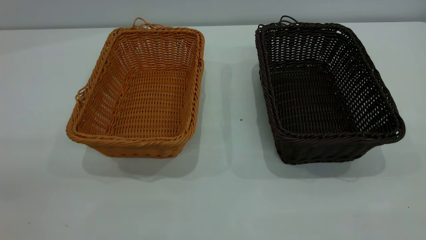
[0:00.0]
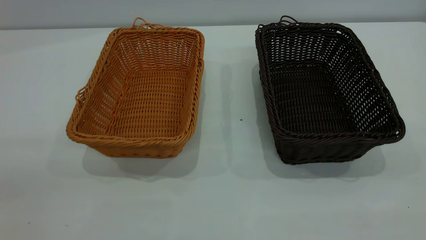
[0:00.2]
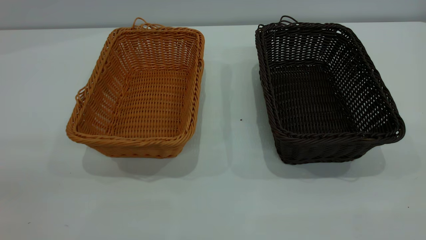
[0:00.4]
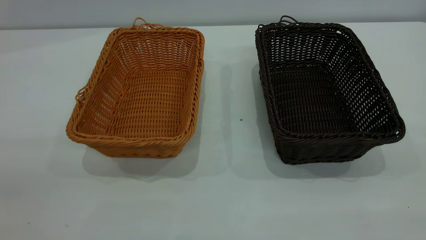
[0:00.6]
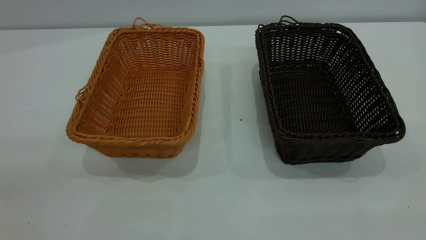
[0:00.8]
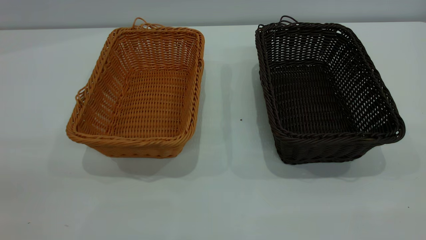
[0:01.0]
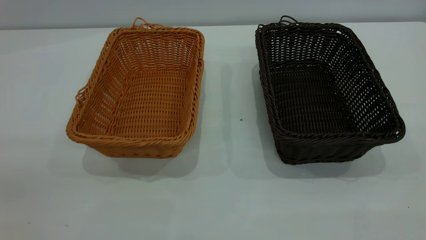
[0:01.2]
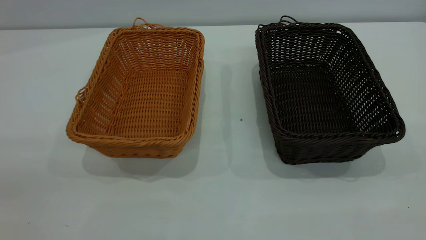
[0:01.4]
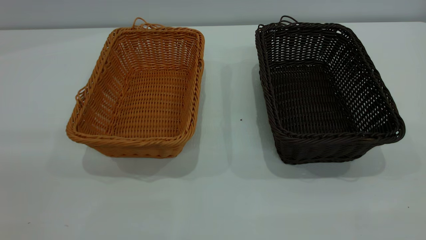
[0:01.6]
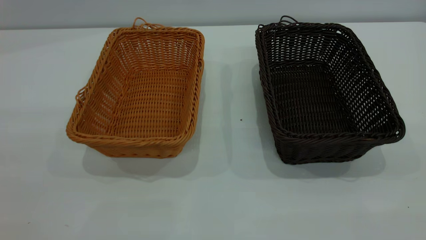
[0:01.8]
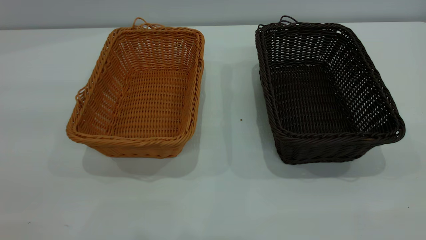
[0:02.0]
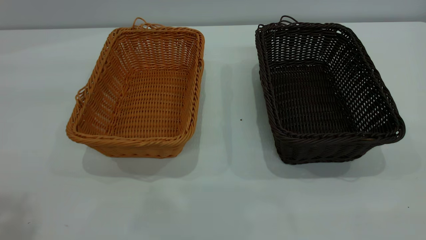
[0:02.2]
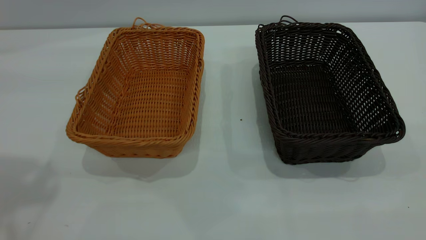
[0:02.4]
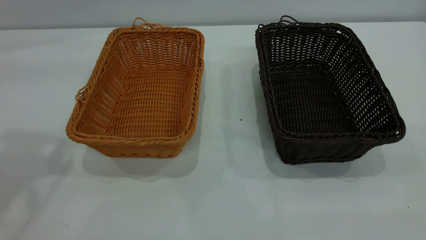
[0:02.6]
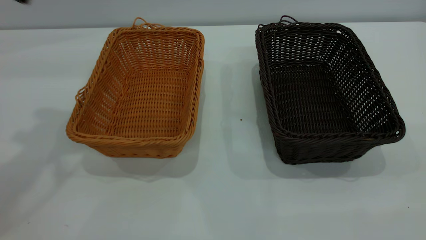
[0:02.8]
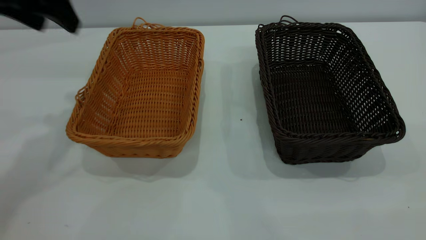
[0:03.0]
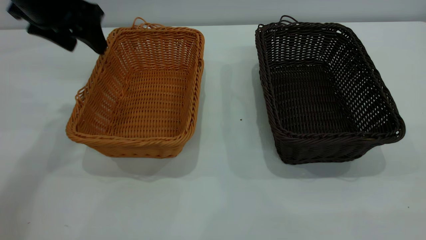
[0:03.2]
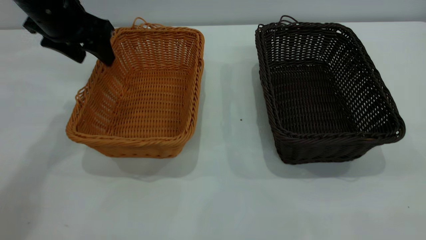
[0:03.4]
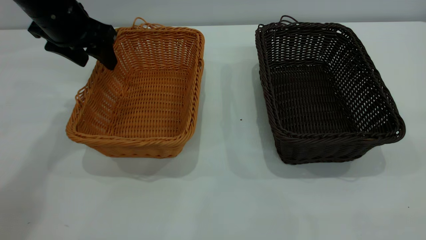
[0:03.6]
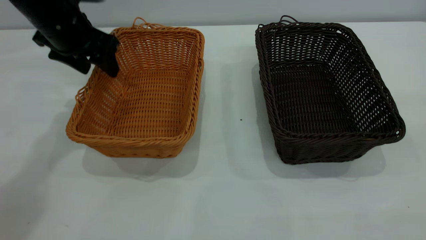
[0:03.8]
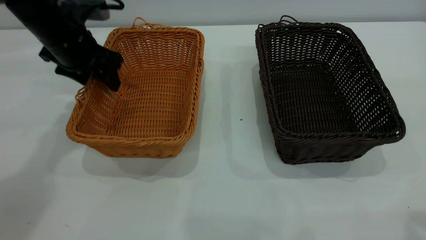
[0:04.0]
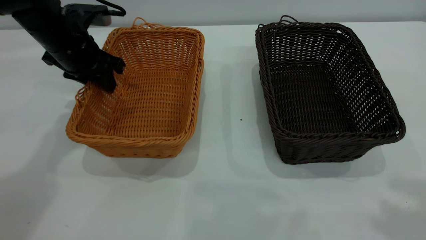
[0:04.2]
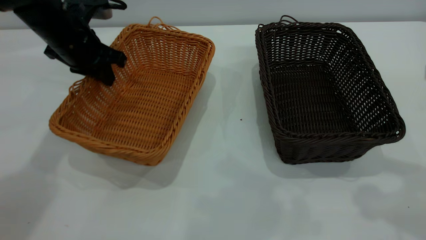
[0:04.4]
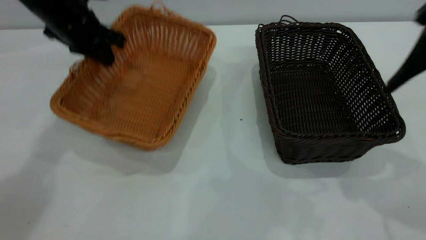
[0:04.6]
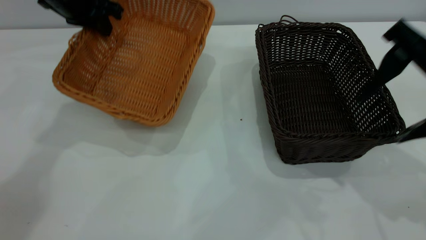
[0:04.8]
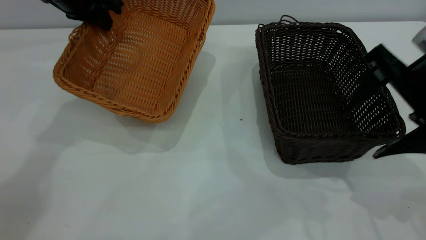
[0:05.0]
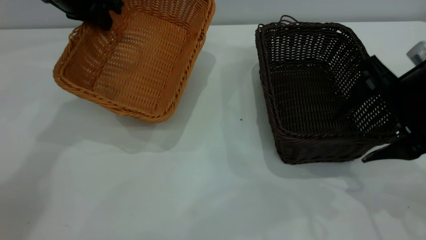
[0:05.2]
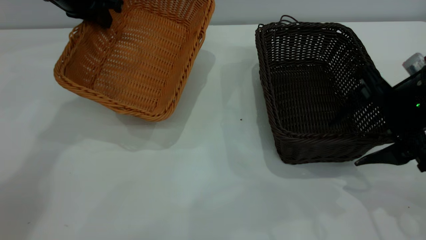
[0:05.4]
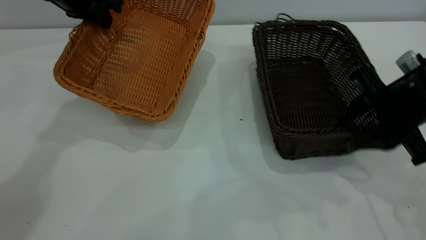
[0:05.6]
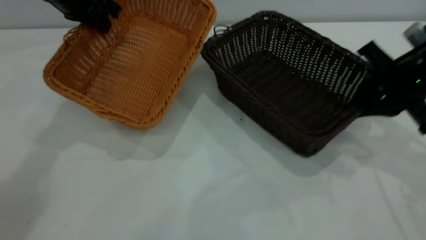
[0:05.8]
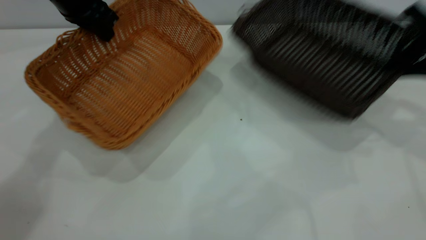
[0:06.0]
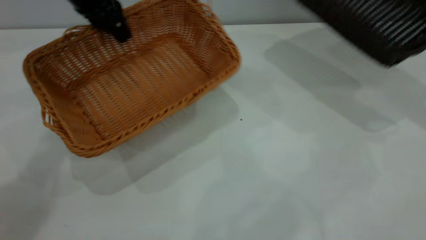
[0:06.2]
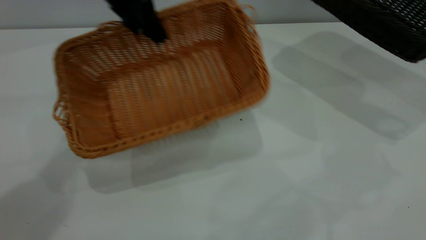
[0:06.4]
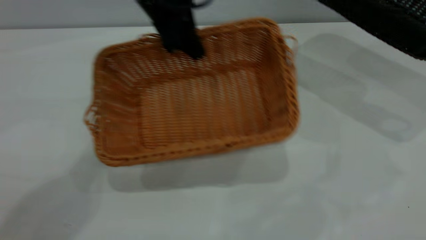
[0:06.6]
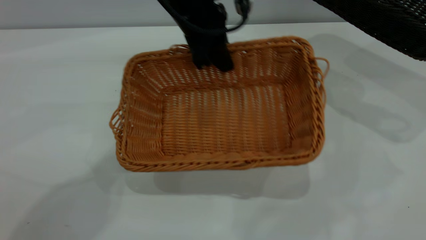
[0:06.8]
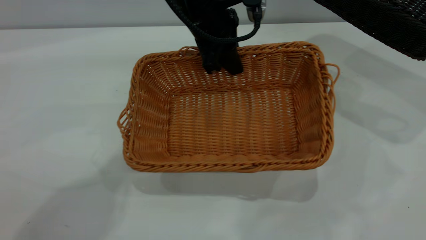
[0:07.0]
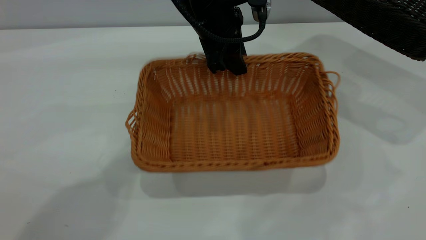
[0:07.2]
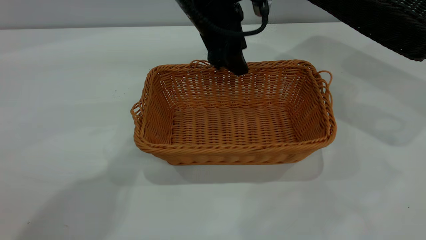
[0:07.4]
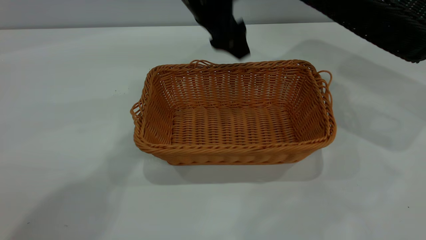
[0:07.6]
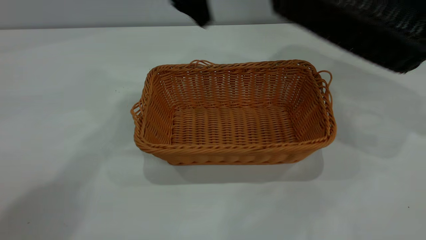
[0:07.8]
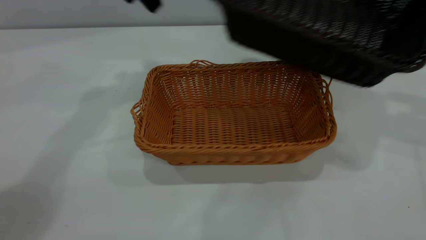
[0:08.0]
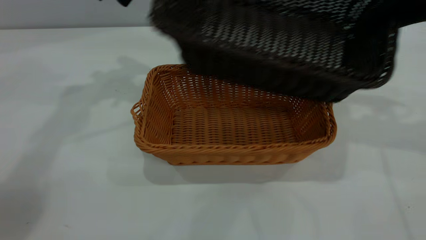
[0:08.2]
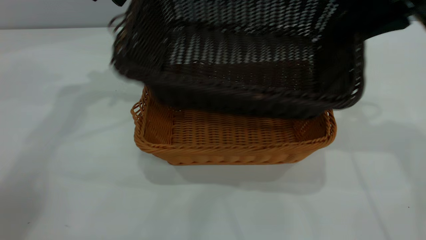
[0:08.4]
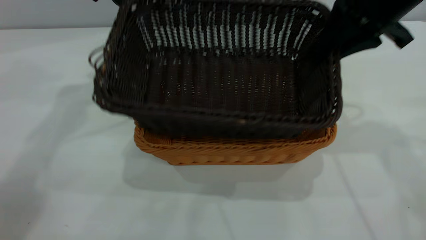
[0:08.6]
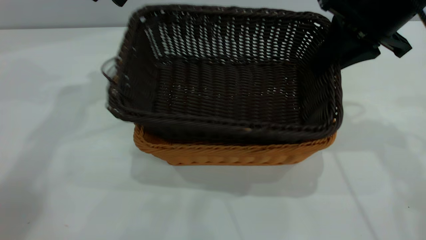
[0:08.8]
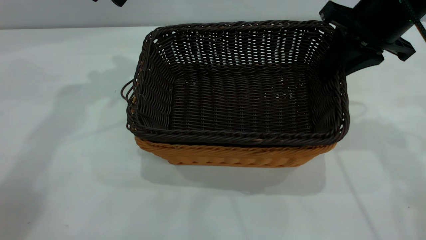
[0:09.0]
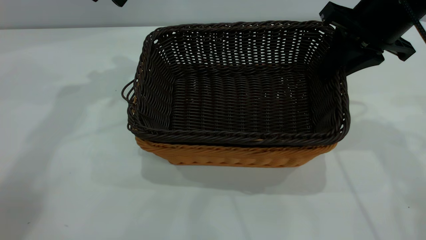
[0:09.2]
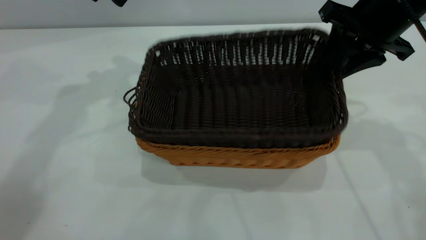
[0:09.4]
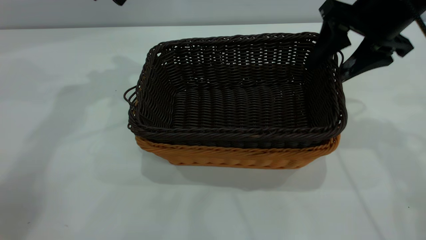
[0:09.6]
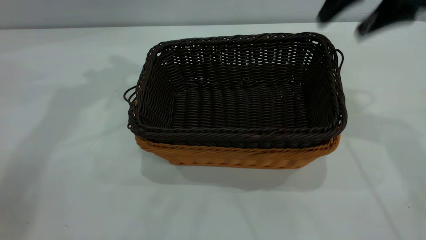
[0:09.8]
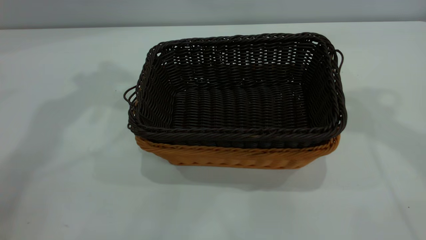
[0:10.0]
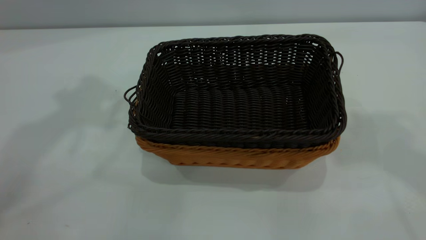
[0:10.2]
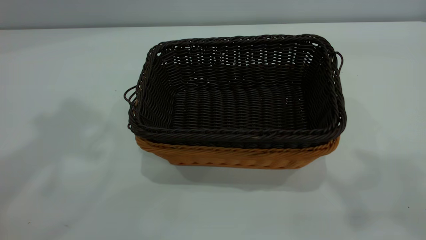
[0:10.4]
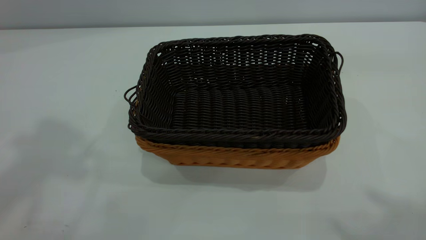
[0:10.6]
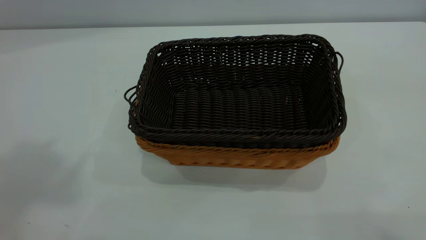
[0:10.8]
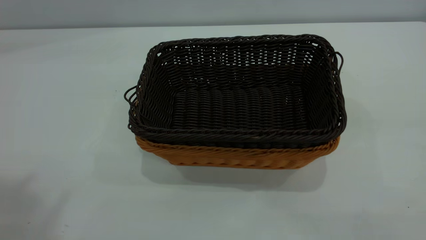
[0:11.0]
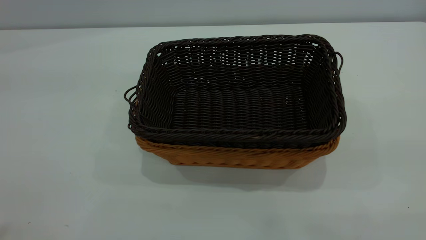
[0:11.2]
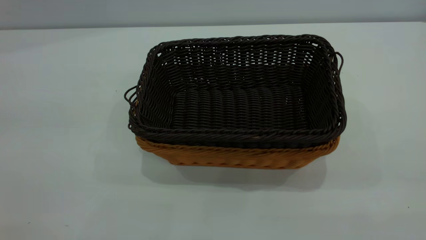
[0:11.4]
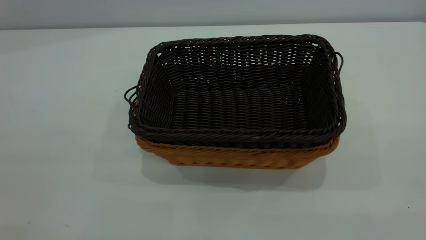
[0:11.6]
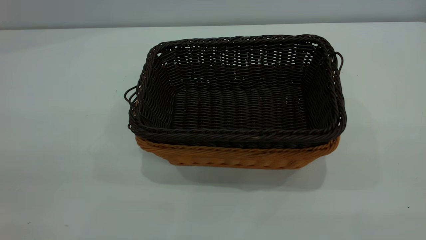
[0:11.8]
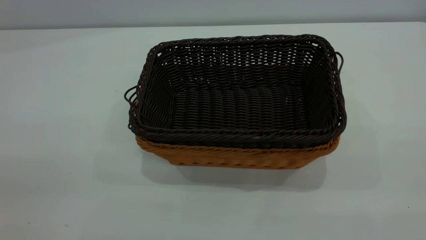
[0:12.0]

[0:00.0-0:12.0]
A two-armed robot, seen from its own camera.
Task of the whole recording: the left gripper grasp the brown basket and place it in the center of the table, the right gripper grasp the black basket and place it inside the brown one.
Step, 0:00.0 to 0:05.6: Pick up the light basket with the right gripper.
Step, 0:05.8 to 0:07.4: Place the light-colored basket in the center.
Step, 0:07.8 to 0:09.6: Place the dark basket on top of the light basket.
0:01.6 to 0:03.0: The left gripper is displaced forward by some 35 cm.
0:03.0 to 0:04.4: The right gripper heads forward, covering about 20 cm, while the left gripper heads downward and forward, covering some 15 cm, and closes its fingers.
0:04.4 to 0:06.0: The right gripper shifts some 20 cm forward, downward and to the right, and closes its fingers. The left gripper travels upward by about 5 cm.
0:06.0 to 0:07.6: The left gripper travels to the right by some 20 cm, and opens its fingers, while the right gripper shifts some 10 cm upward and to the right.
0:07.6 to 0:09.0: Both grippers travel together to the left, some 20 cm.
0:09.0 to 0:10.4: Both grippers move upward and backward, about 35 cm. The right gripper opens.

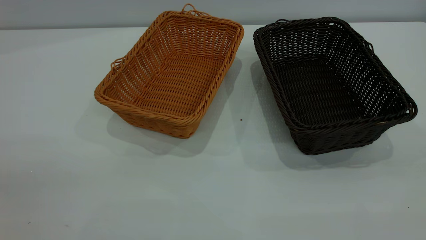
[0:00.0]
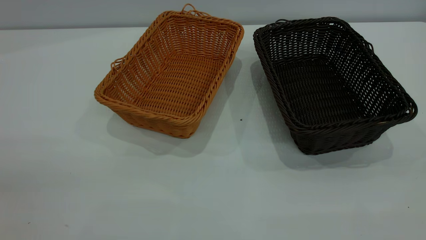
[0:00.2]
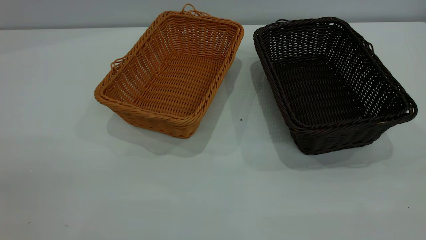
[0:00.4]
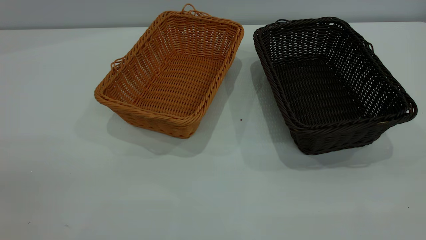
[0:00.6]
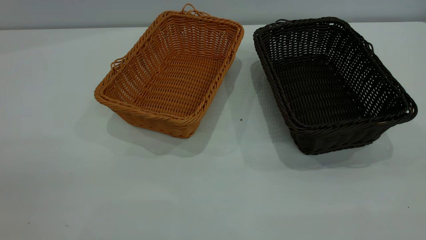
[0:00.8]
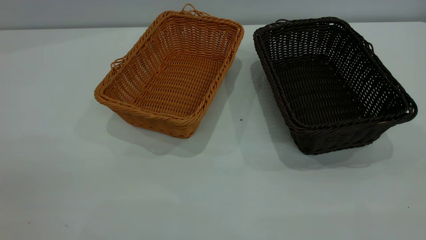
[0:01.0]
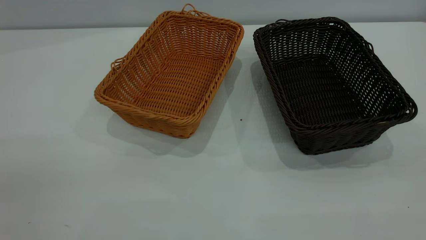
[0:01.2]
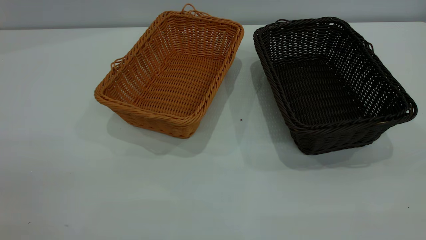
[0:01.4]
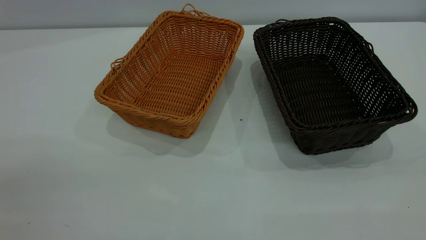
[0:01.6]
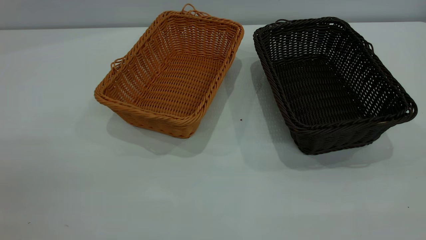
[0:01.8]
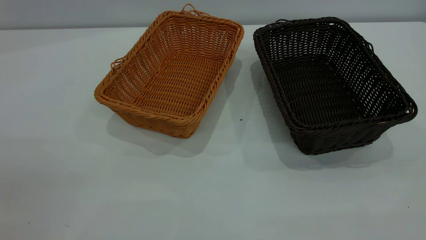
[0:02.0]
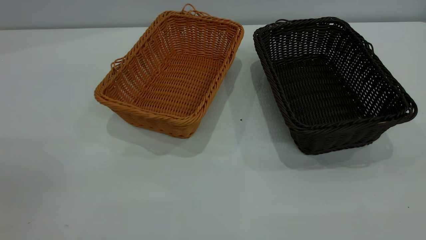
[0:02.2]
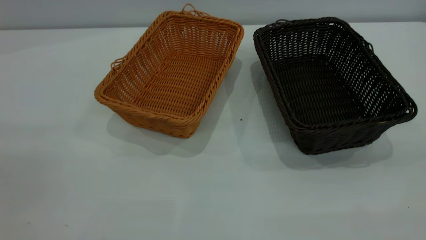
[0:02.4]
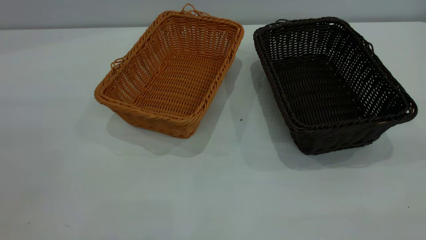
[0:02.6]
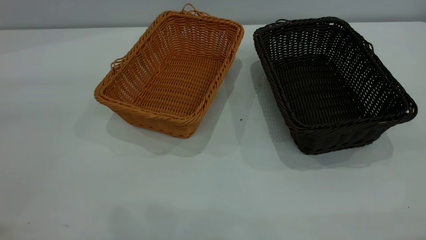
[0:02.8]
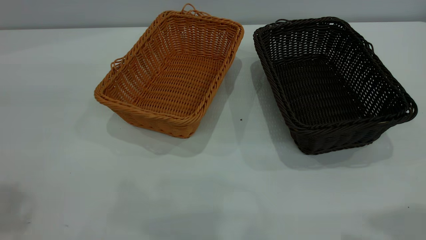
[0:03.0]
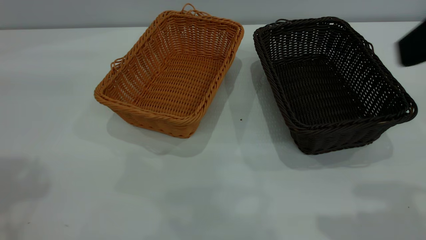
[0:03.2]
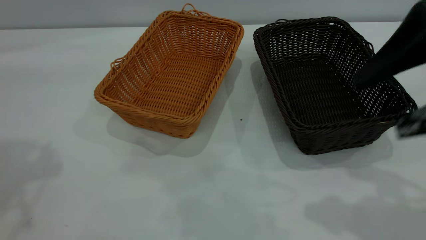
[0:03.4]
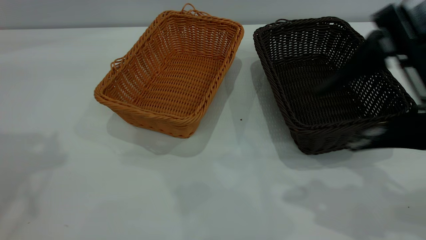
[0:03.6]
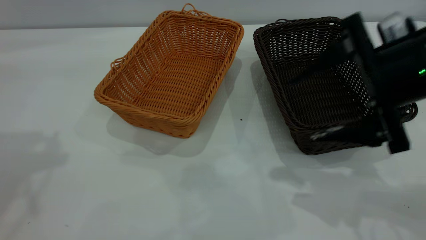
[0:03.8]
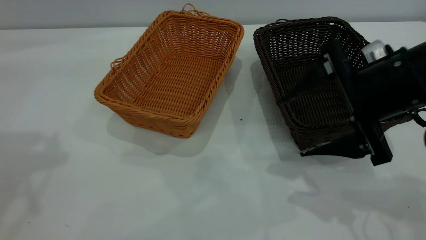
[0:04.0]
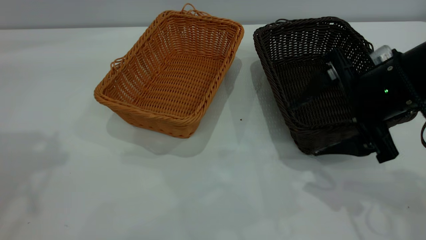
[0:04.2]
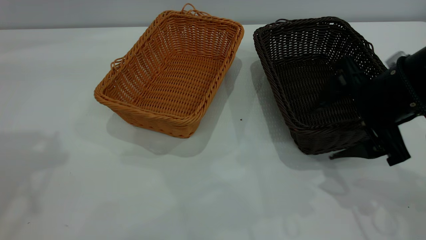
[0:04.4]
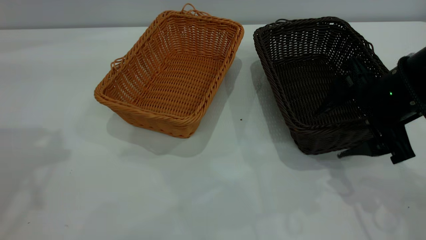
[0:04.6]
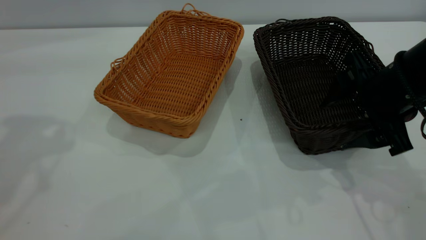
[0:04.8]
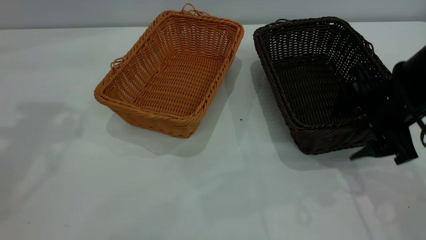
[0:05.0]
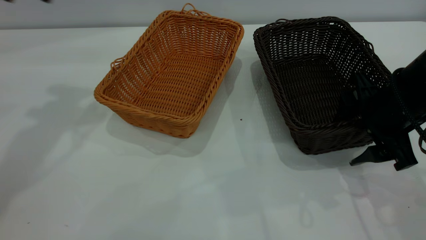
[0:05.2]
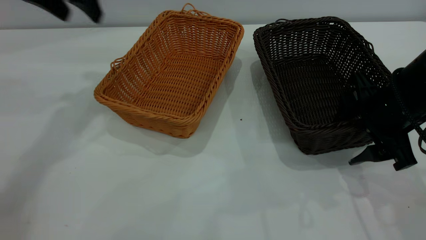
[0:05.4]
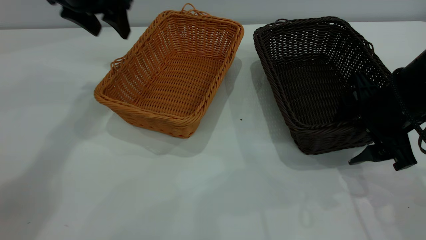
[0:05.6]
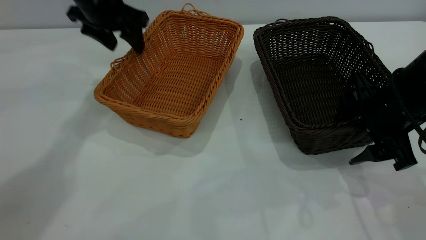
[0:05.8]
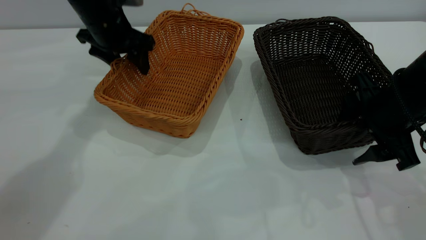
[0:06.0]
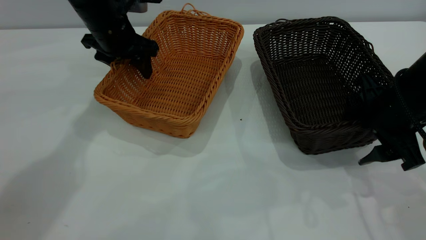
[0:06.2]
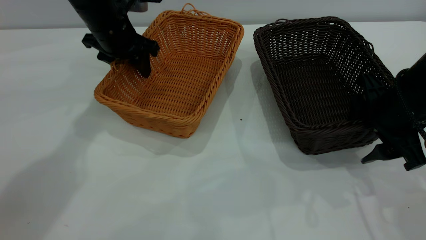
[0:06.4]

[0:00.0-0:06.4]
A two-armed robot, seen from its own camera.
Task of the whole recording: the left gripper grasp the brown basket and place it in the center of the table, the right gripper grasp the black basket and place it inside the brown one.
0:00.0 to 0:01.6: Both grippers stay put.
0:01.6 to 0:03.2: The right gripper is displaced forward by approximately 15 cm, and opens its fingers.
0:03.2 to 0:04.8: The right gripper travels downward and forward by some 20 cm.
0:04.8 to 0:06.4: The left gripper travels downward, forward and to the right by approximately 30 cm.
